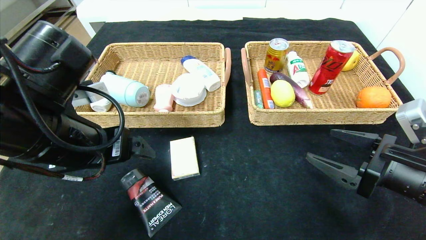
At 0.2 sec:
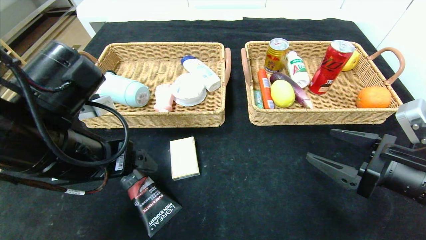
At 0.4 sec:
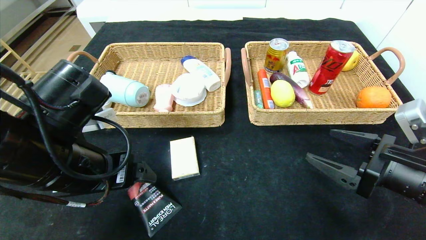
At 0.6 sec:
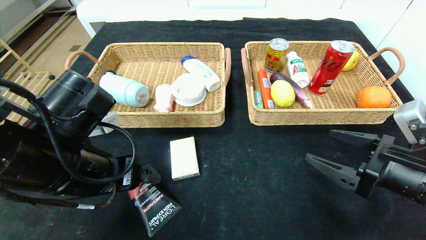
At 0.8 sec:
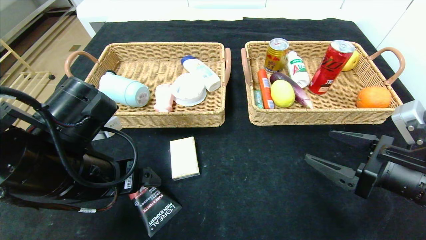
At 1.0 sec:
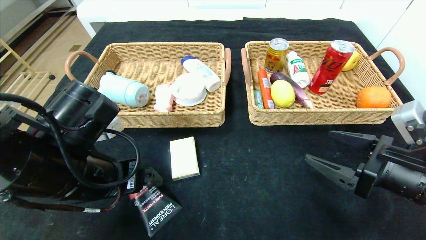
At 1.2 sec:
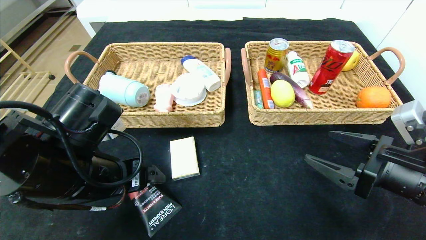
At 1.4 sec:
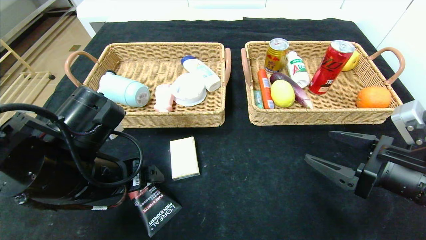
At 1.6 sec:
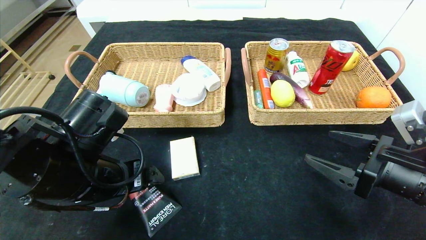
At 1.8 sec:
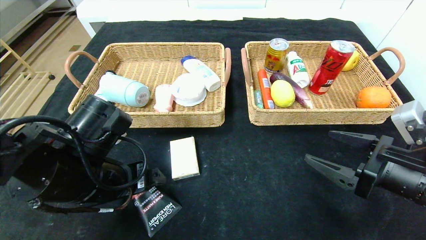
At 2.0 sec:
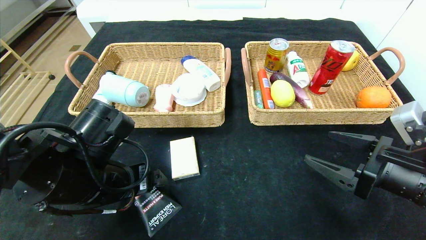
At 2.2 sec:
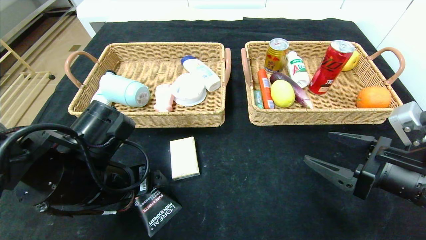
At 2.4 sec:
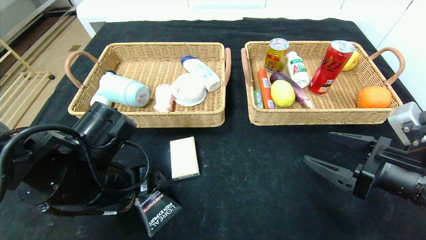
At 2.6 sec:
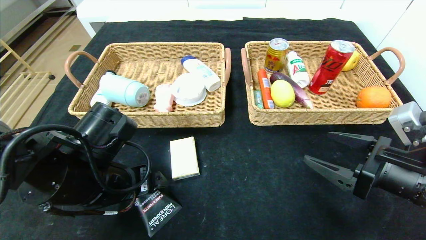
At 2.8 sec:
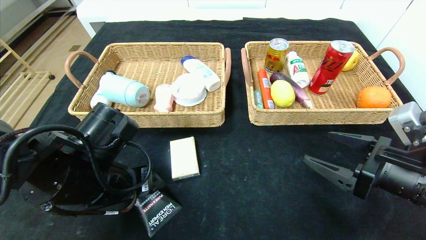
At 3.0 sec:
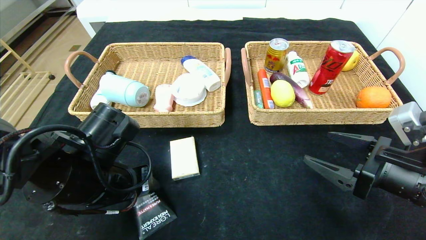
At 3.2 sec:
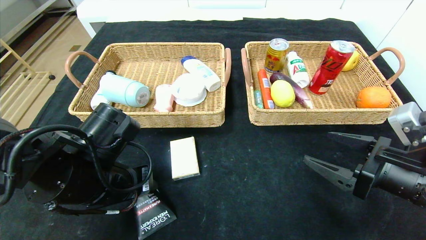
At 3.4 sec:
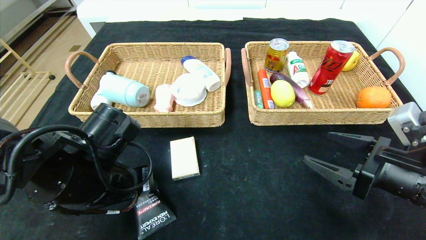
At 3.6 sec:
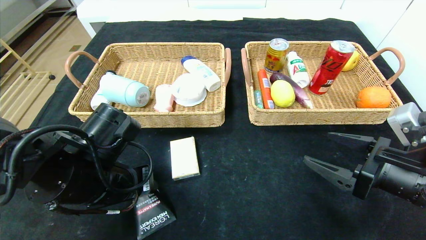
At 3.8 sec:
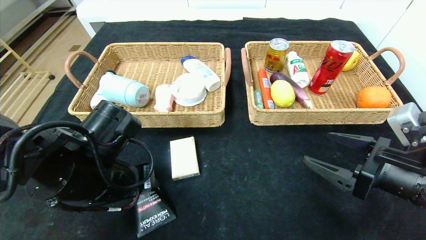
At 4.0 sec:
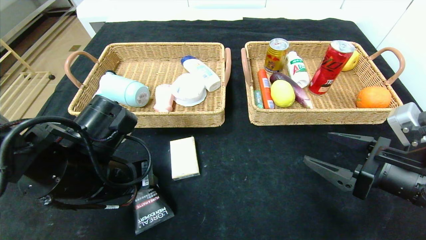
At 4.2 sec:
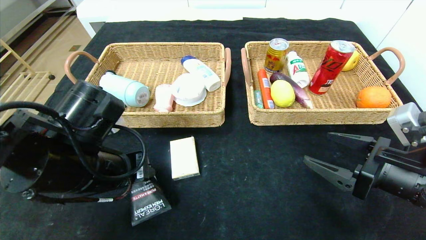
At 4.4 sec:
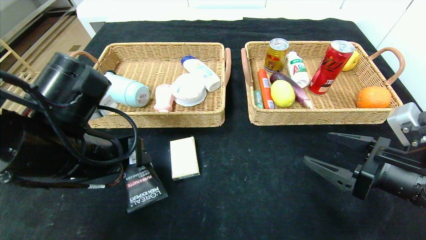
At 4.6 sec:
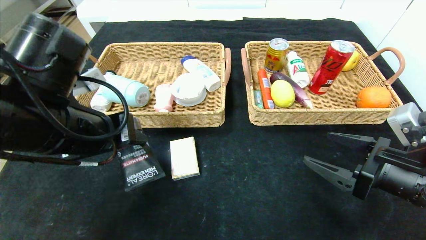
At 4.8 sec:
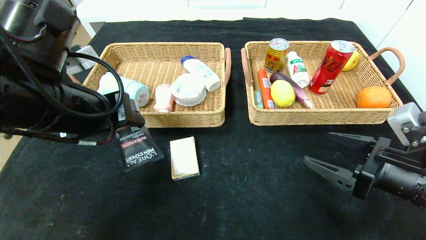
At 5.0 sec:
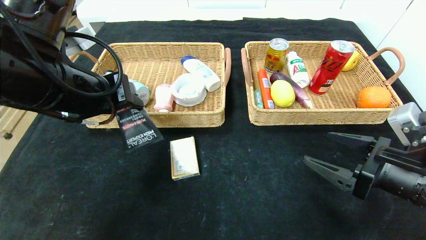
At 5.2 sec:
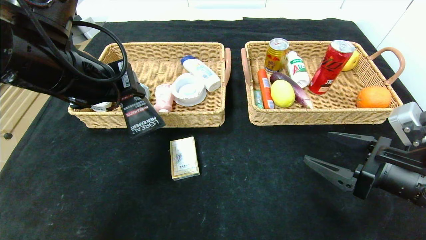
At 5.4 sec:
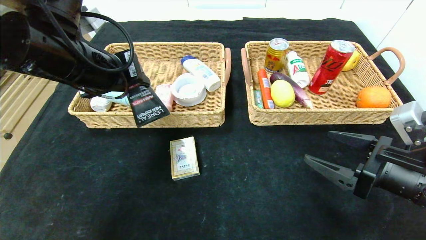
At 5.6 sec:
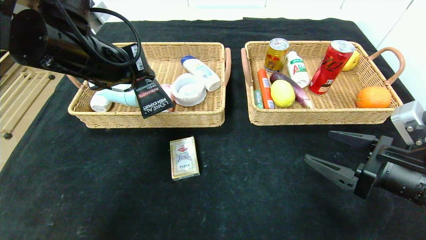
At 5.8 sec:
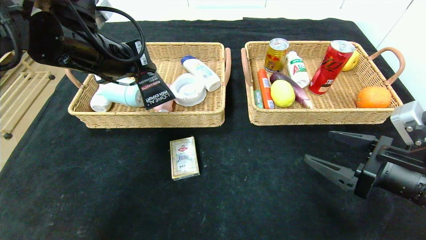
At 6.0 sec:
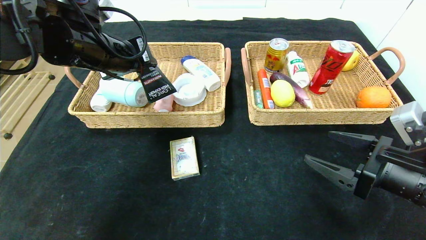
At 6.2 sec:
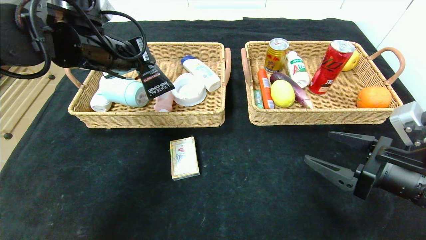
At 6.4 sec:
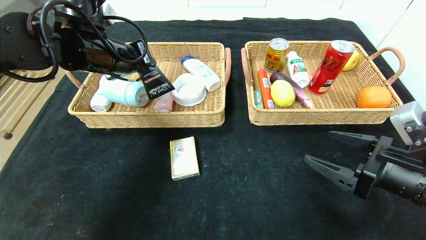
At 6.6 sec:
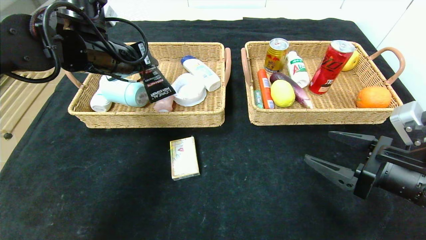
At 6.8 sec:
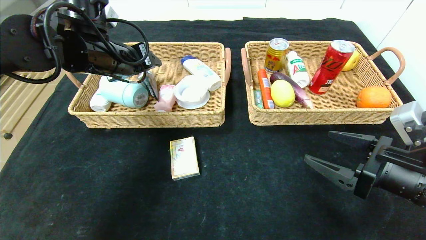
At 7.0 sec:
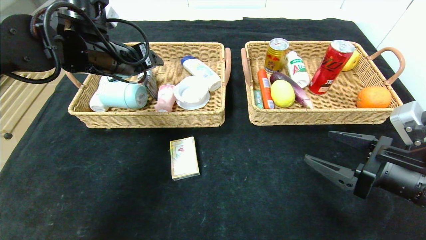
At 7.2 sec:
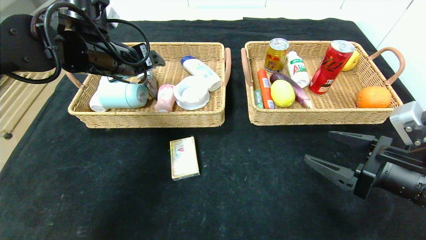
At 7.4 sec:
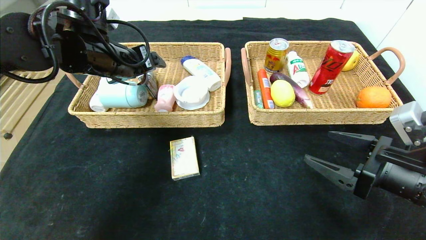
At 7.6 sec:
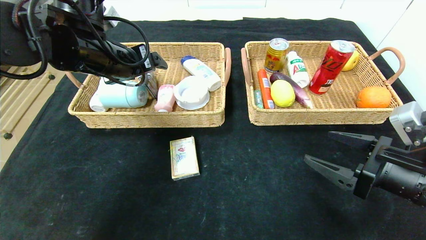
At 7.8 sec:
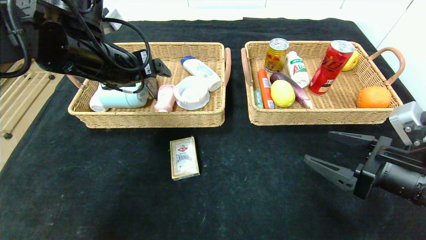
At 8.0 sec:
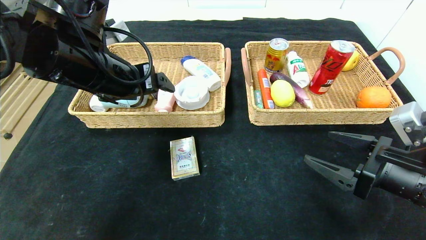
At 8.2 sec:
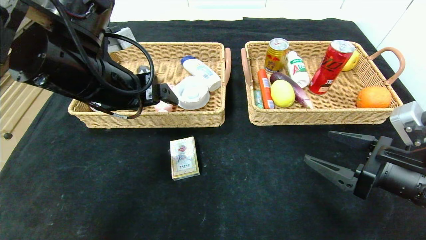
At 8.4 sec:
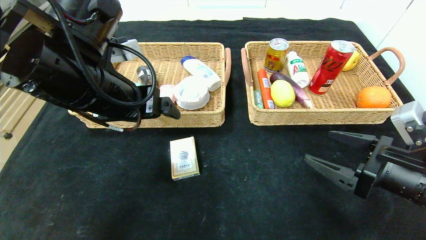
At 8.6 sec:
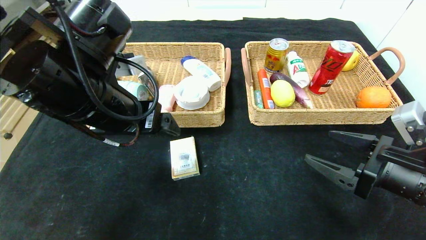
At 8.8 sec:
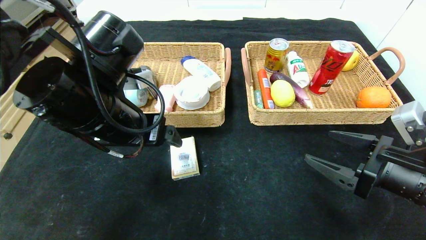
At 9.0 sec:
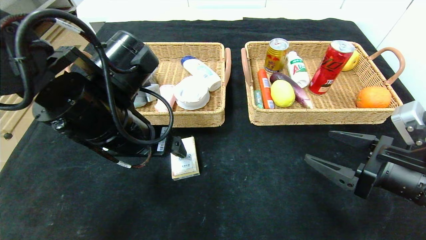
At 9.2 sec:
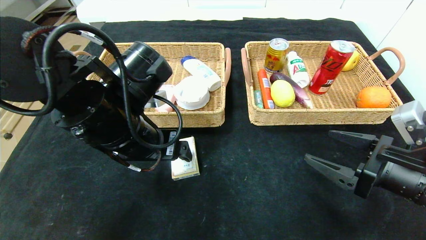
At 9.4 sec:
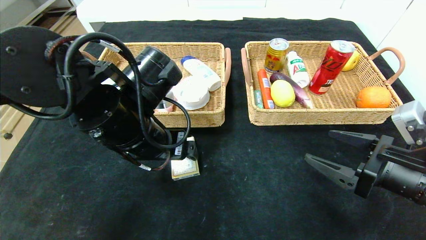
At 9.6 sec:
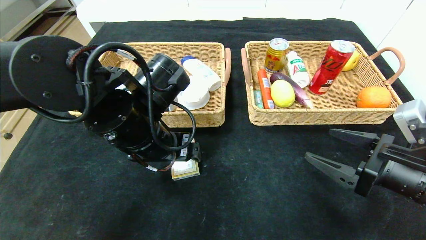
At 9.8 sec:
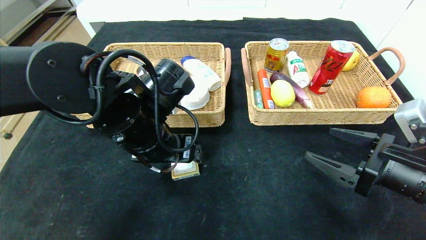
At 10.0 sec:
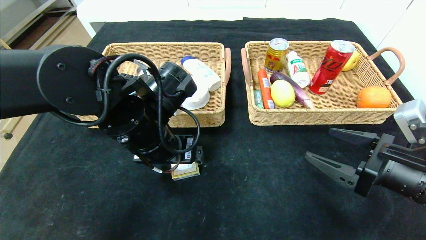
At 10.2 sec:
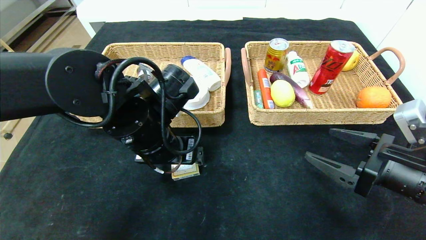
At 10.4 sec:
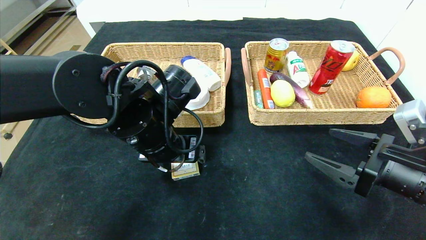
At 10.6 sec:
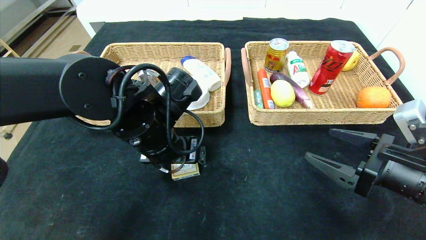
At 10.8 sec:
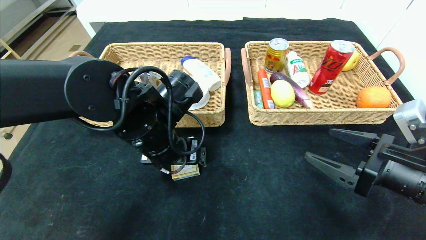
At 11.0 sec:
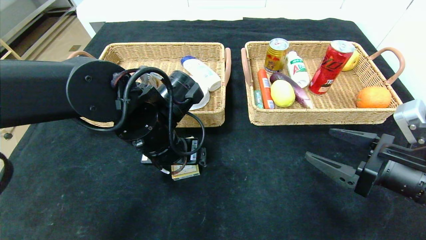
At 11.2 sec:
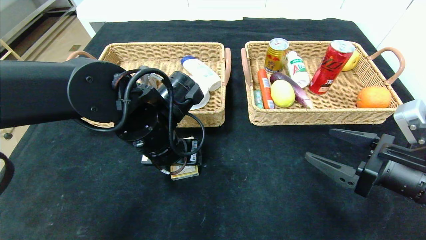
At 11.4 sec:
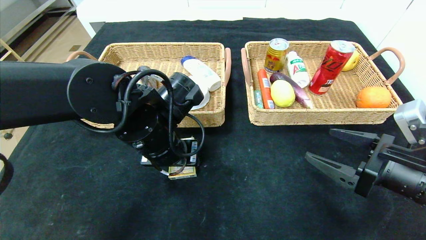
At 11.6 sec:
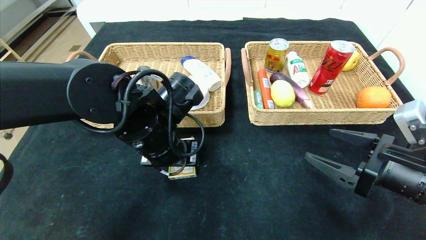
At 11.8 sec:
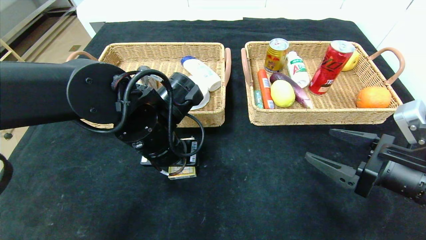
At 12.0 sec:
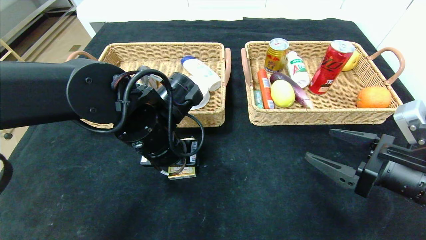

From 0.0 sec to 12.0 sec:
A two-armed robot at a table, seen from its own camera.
Step, from 0.0 sec to 6.8 sec: Grasp the soft cleanser and put it in the left basket.
From 0.0 sec to 1.6 sec: The left gripper is displaced downward by about 5 cm.
From 1.6 sec to 3.0 sec: The left gripper closes its fingers.
From 3.0 sec to 4.4 sec: The left gripper moves upward, about 5 cm.
From 4.4 sec to 6.0 sec: The left gripper moves forward and upward, approximately 15 cm.
From 6.0 sec to 7.6 sec: The left gripper opens its fingers.
From 7.6 sec to 9.0 sec: The left gripper goes roughly 10 cm backward, downward and to the right.
From 9.0 sec to 10.4 sec: The left gripper changes place by approximately 5 cm.
From 10.4 sec to 12.0 sec: The left gripper closes.

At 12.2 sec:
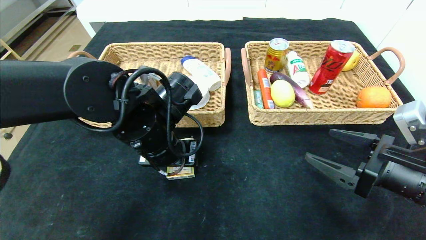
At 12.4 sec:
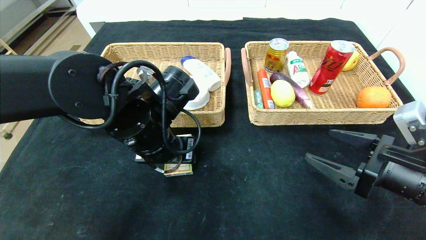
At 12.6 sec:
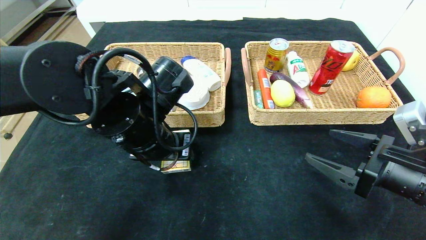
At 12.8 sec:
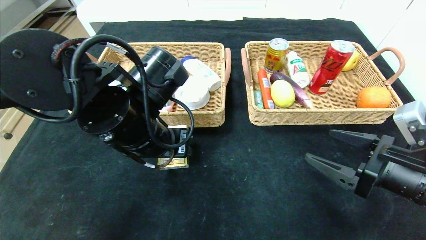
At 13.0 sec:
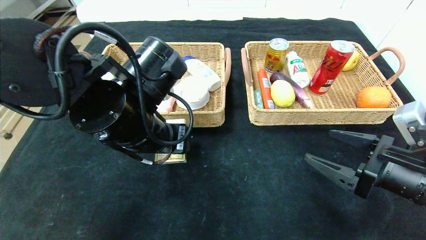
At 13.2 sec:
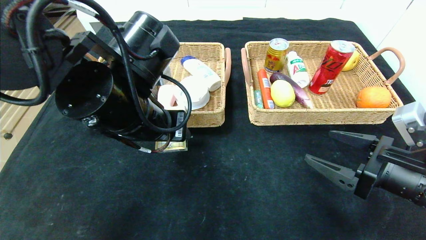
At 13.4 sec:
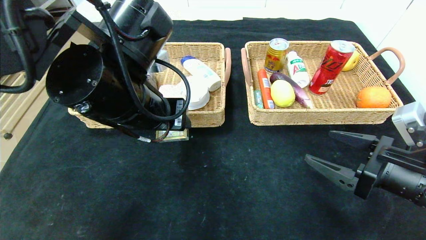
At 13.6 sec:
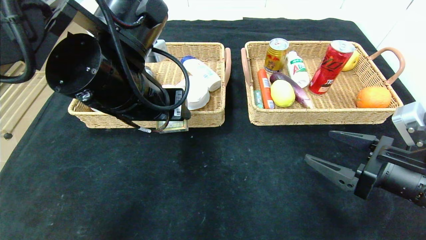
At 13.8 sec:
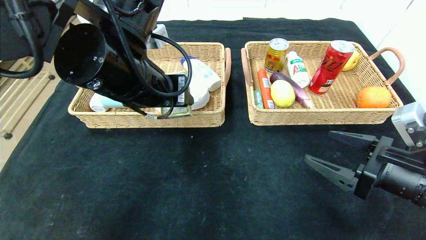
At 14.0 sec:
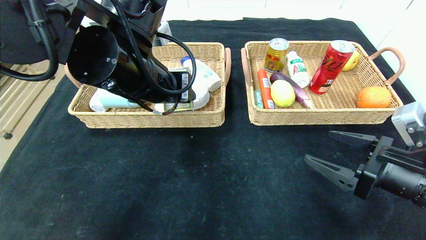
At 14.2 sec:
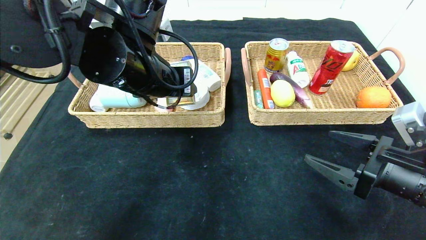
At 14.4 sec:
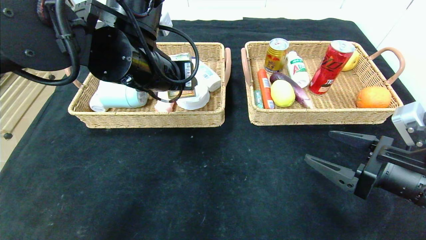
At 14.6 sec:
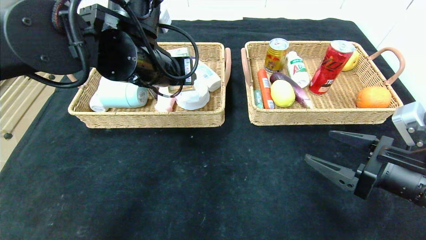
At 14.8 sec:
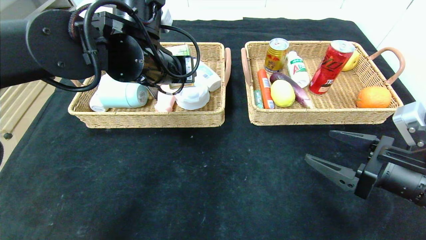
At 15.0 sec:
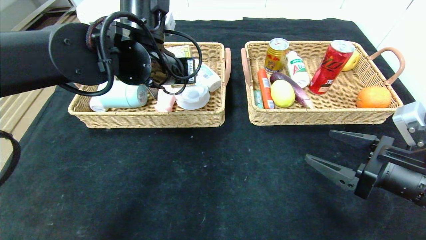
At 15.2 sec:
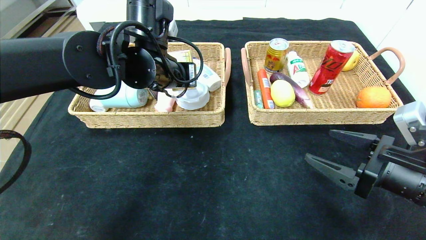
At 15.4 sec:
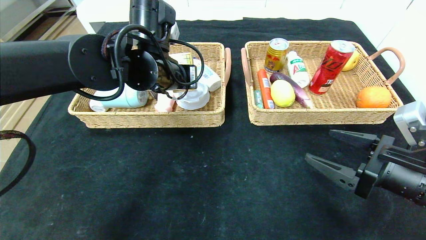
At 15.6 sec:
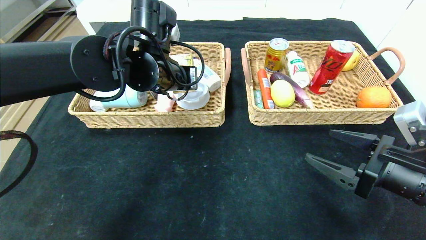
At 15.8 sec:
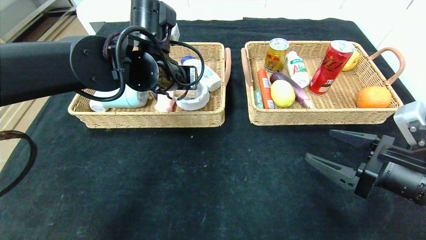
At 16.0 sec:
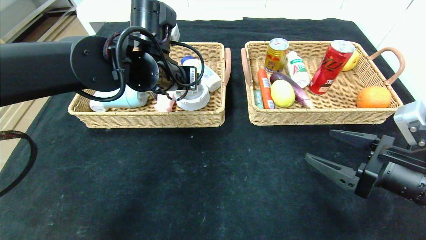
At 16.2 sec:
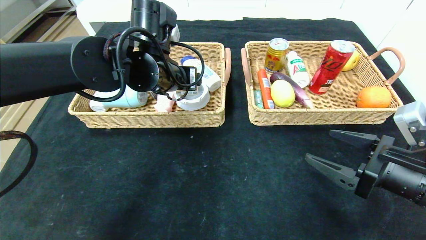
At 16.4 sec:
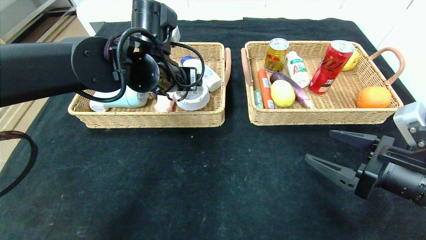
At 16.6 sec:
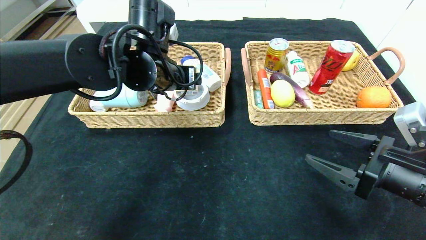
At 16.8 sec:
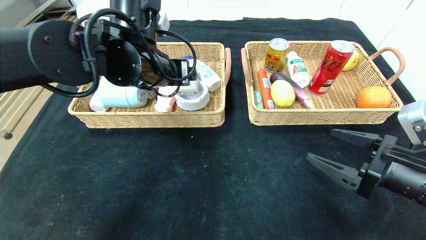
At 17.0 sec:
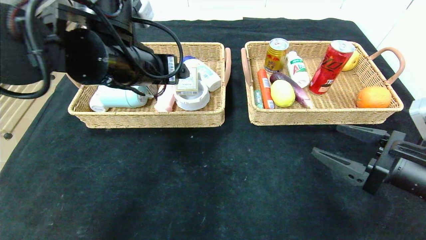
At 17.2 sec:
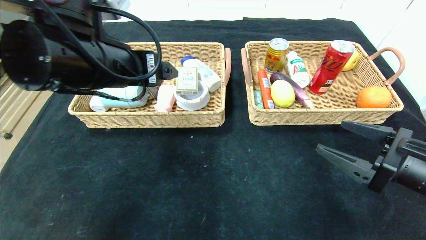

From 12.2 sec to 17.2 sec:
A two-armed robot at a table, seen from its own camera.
Step, from 12.2 sec to 16.2 sec: Grasp the playing cards and put it in the left basket.
From 12.2 sec to 13.8 sec: The left gripper shifts approximately 10 cm upward.
From 13.8 sec to 15.6 sec: The left gripper heads forward, covering roughly 10 cm.
From 15.6 sec to 17.2 sec: The left gripper travels backward by some 10 cm, and opens up.
